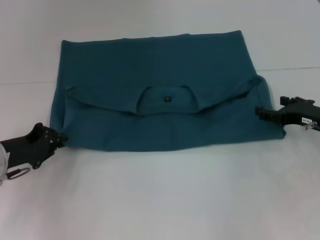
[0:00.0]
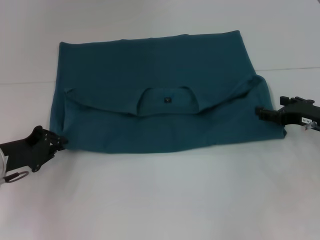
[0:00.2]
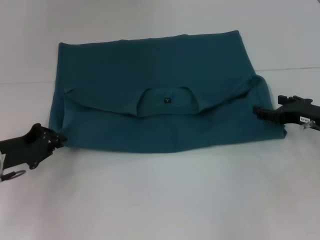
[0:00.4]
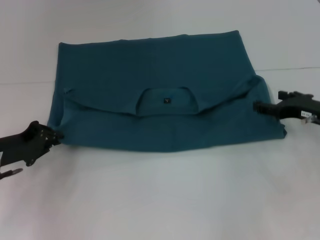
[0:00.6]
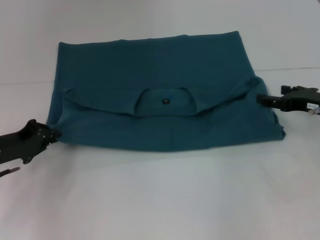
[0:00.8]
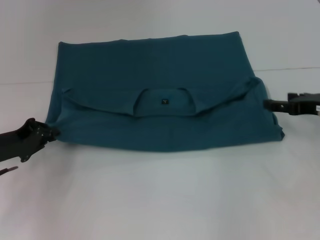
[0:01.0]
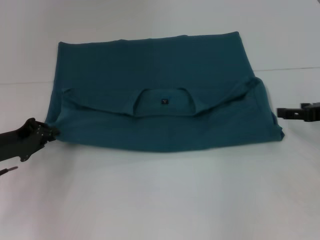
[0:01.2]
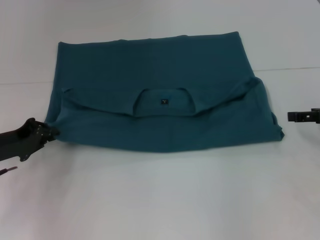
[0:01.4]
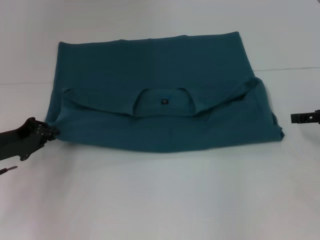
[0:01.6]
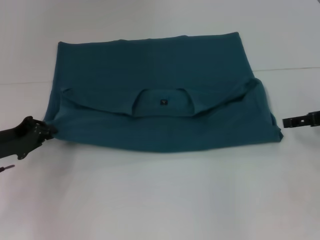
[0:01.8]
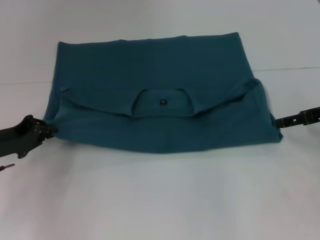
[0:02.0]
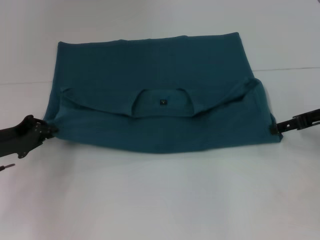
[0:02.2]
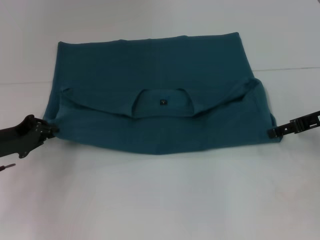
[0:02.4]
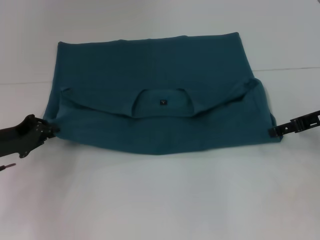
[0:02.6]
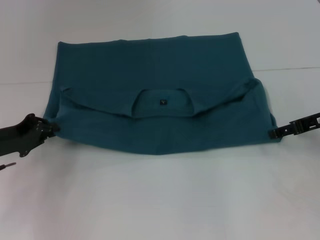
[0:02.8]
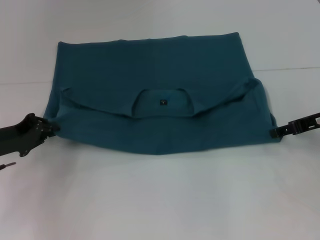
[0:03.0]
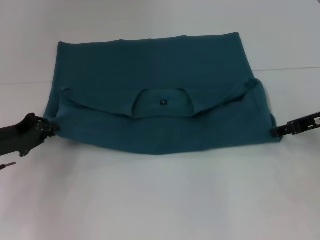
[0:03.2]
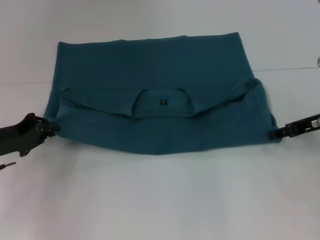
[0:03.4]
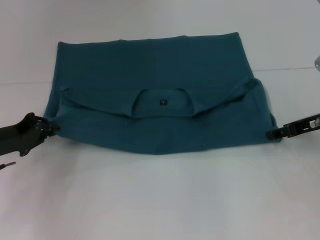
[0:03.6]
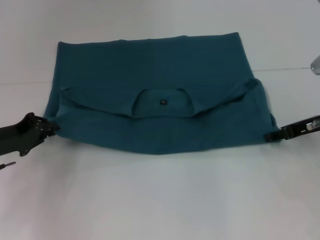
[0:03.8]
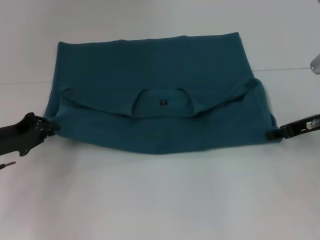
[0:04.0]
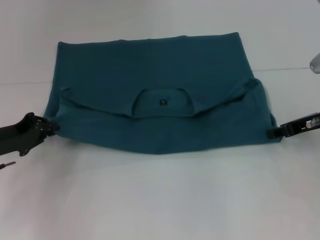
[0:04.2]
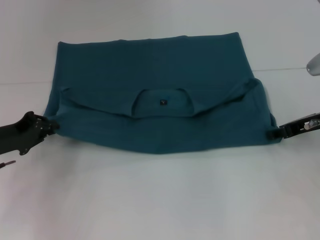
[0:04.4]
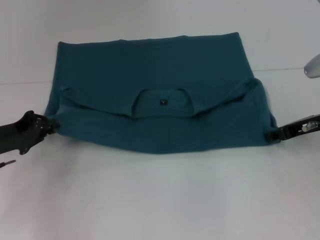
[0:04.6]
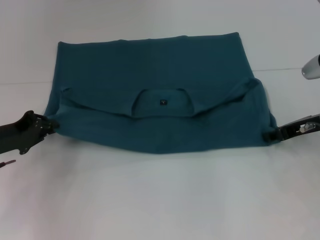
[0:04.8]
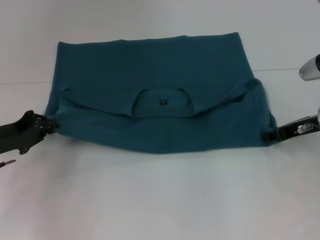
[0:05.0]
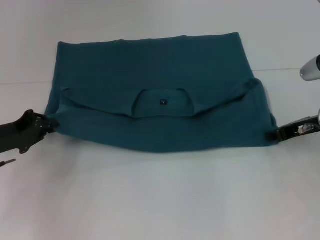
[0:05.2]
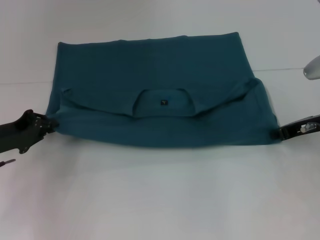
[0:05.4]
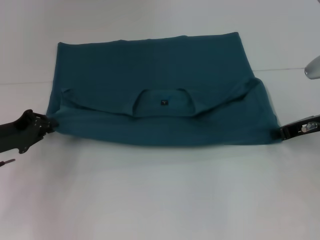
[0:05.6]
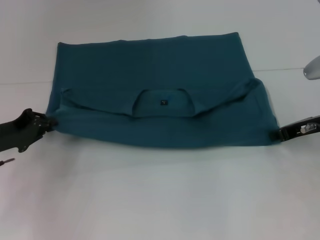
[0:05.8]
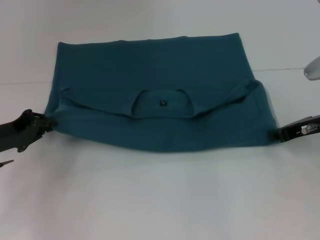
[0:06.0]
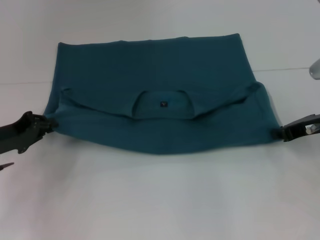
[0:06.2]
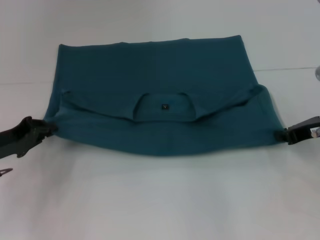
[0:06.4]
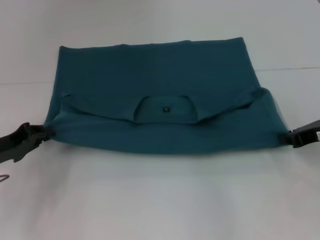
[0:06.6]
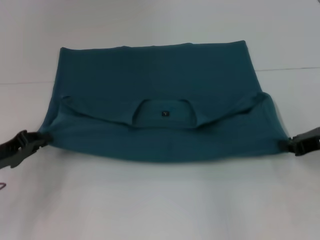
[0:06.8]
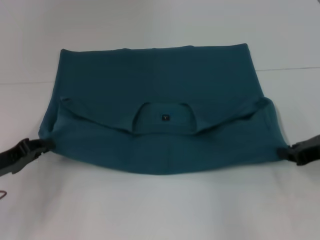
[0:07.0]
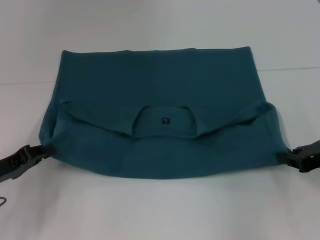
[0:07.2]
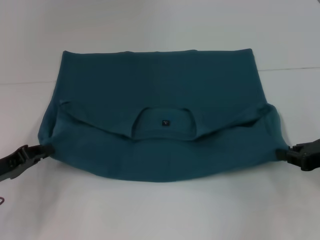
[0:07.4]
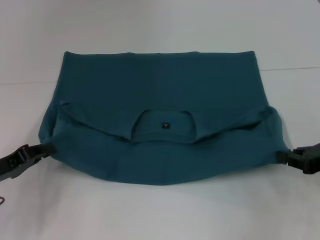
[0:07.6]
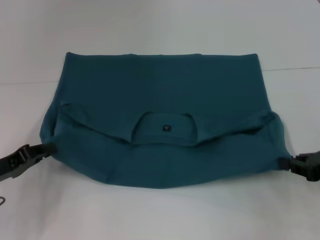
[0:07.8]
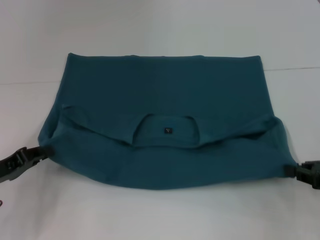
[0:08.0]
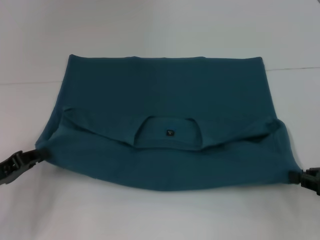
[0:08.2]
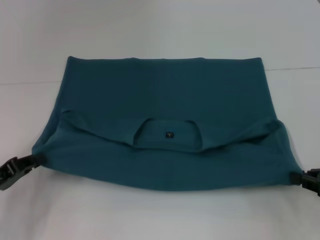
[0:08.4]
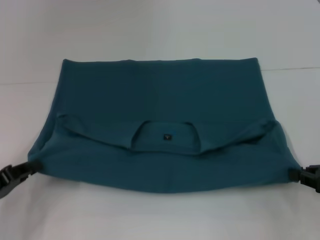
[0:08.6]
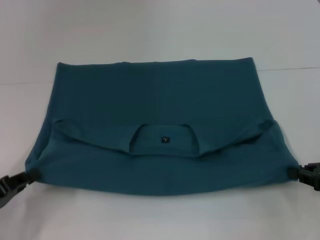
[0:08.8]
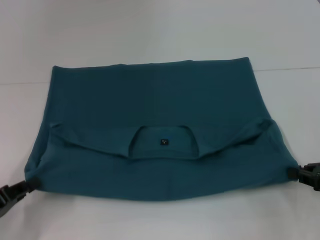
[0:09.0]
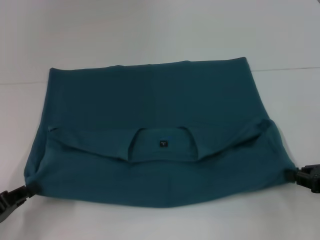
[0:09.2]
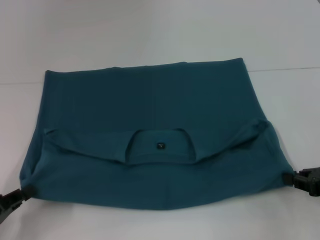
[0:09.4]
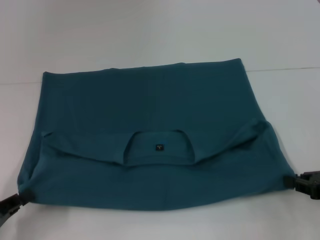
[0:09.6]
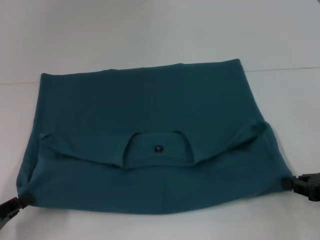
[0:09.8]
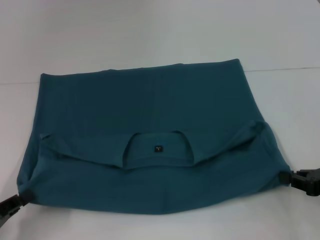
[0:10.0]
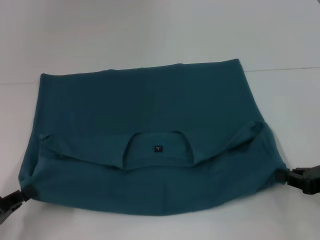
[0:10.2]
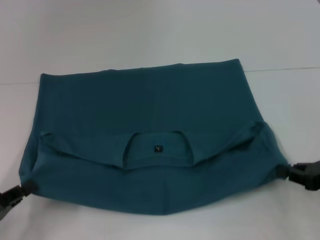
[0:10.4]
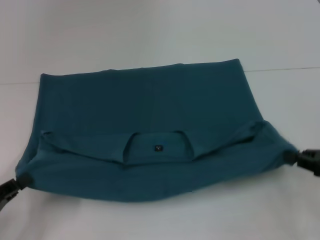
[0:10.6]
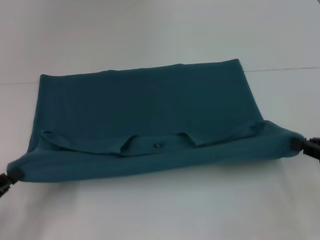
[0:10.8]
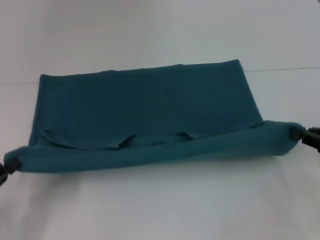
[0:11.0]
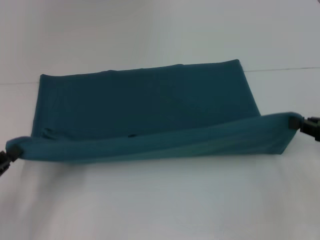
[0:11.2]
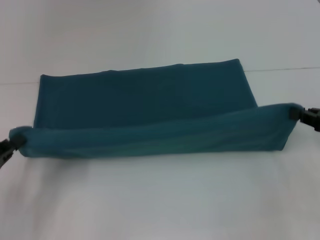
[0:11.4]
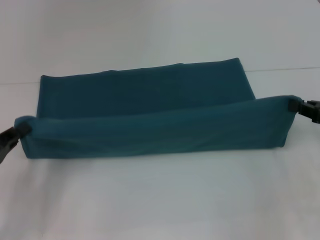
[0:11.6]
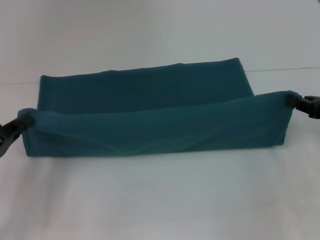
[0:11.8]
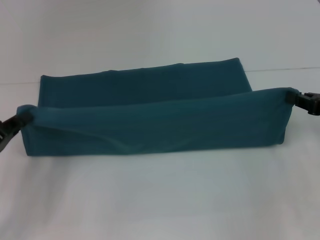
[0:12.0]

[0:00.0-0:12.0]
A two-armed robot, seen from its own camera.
Step, 0:00.0 to 0:08.8: Pull the clothes with your left hand.
Step, 0:00.0 to 0:08.8: Pull the clothes with your right hand.
0:00.0 to 0:01.6: The right gripper goes roughly 10 cm upward and to the right.
0:01.6 to 0:03.0: The right gripper changes place by roughly 5 cm.
0:03.0 to 0:04.4: The right gripper closes its fingers.
0:04.4 to 0:06.0: The right gripper closes its fingers.
0:06.0 to 0:07.6: The right gripper travels backward by some 10 cm; the left gripper is displaced backward by roughly 5 cm.
0:07.6 to 0:09.0: The left gripper is displaced backward by roughly 5 cm.
0:09.0 to 0:10.4: The grippers move only a little.
0:10.4 to 0:12.0: The grippers both shift forward by approximately 5 cm.

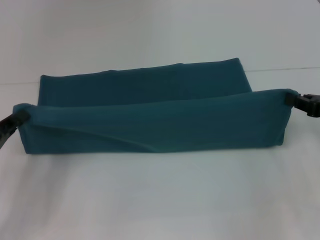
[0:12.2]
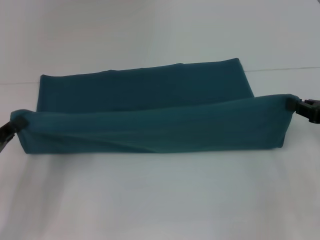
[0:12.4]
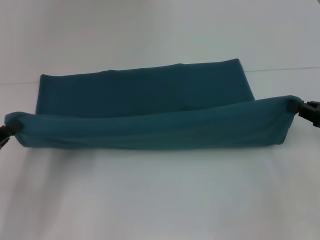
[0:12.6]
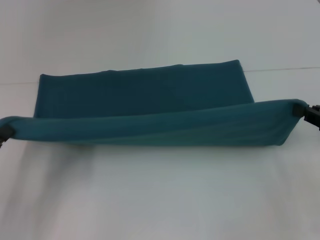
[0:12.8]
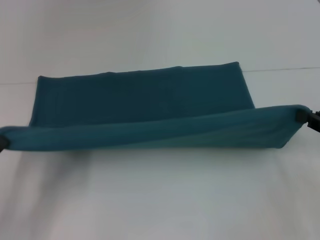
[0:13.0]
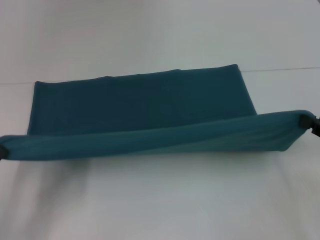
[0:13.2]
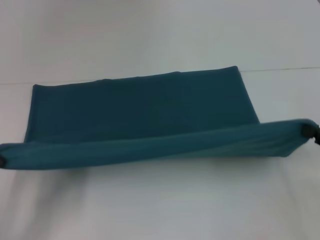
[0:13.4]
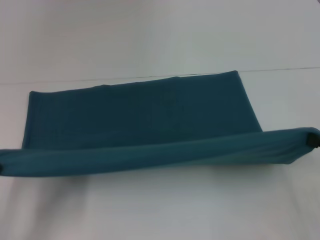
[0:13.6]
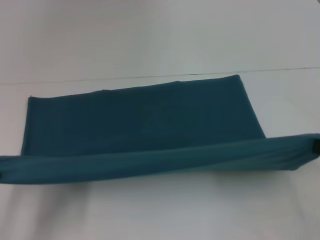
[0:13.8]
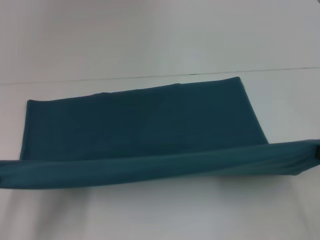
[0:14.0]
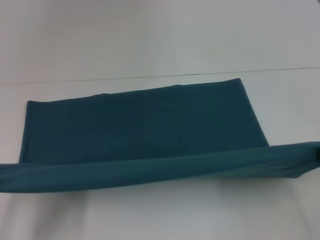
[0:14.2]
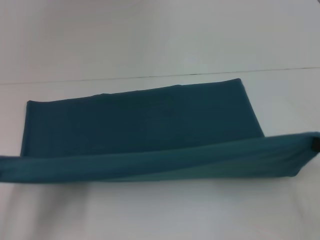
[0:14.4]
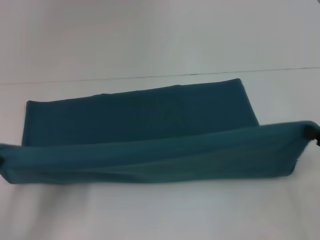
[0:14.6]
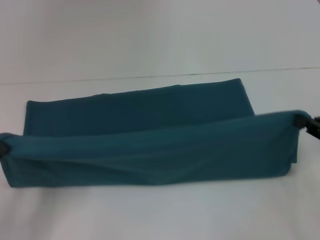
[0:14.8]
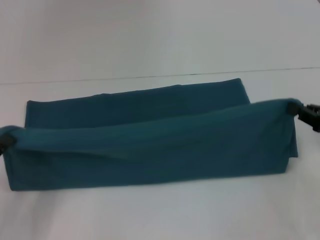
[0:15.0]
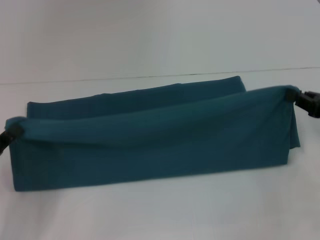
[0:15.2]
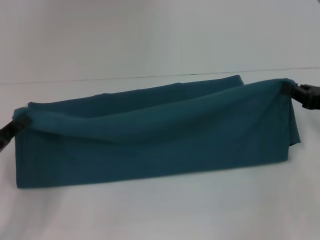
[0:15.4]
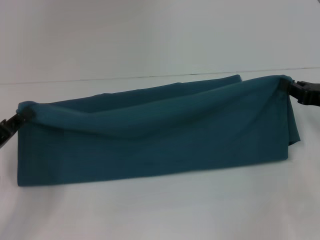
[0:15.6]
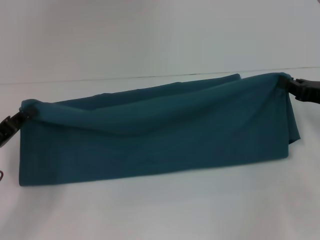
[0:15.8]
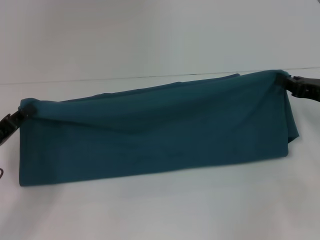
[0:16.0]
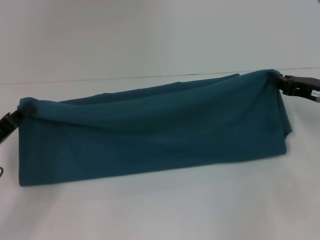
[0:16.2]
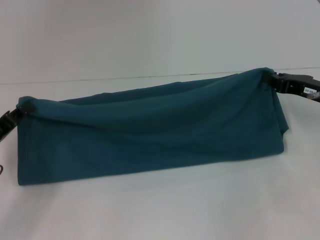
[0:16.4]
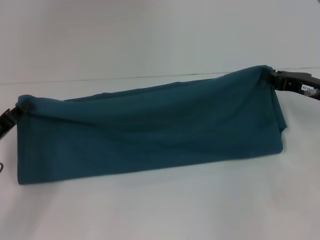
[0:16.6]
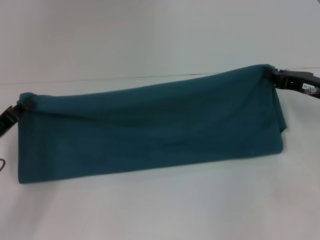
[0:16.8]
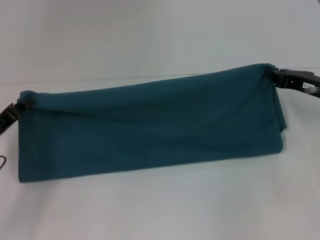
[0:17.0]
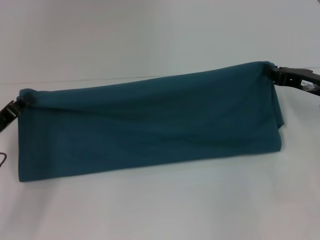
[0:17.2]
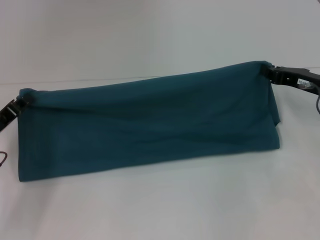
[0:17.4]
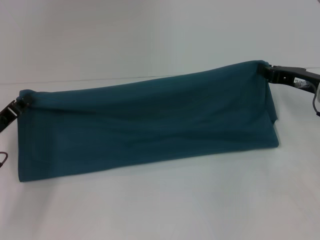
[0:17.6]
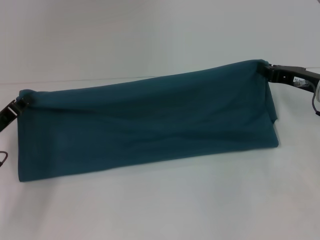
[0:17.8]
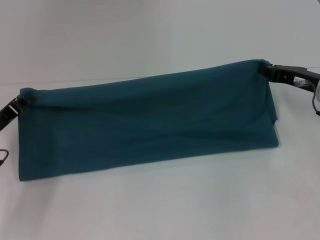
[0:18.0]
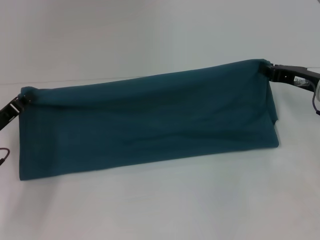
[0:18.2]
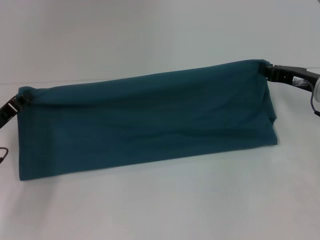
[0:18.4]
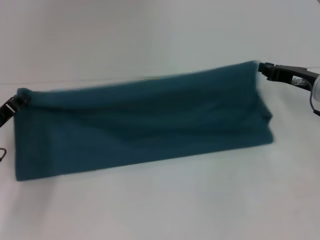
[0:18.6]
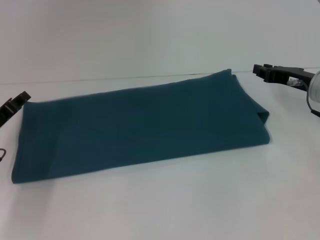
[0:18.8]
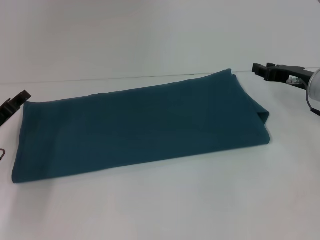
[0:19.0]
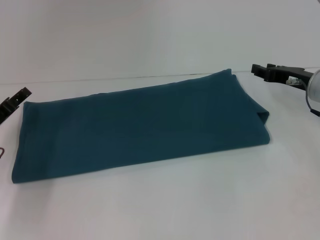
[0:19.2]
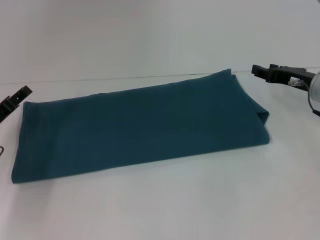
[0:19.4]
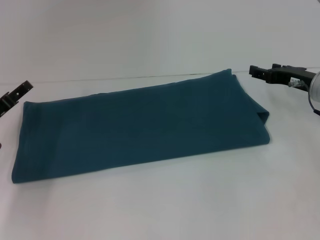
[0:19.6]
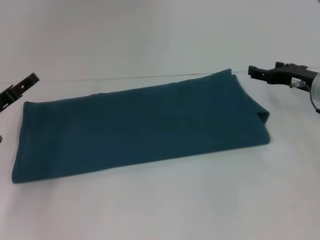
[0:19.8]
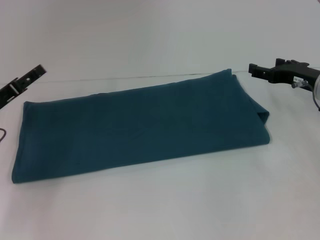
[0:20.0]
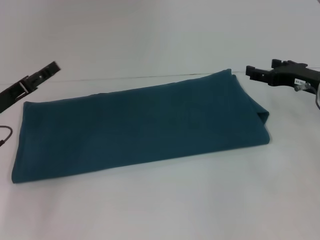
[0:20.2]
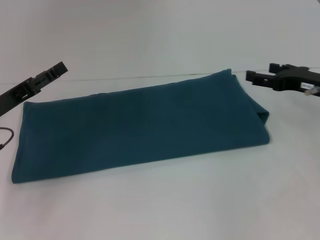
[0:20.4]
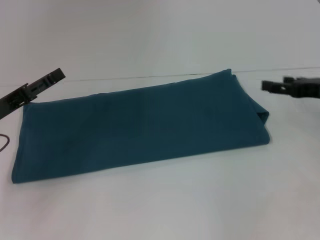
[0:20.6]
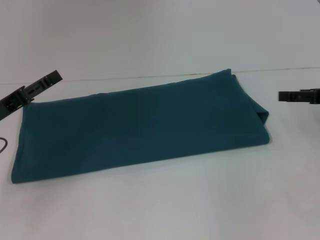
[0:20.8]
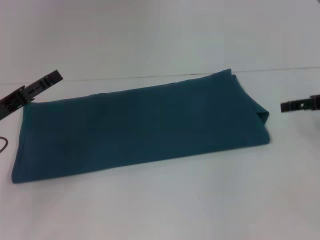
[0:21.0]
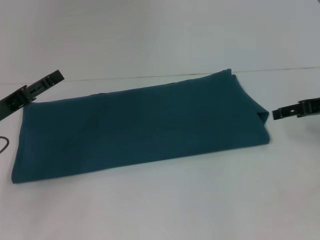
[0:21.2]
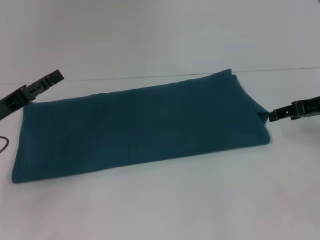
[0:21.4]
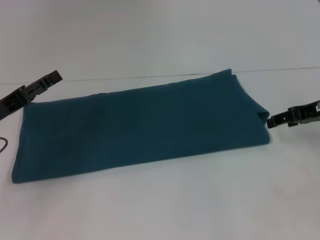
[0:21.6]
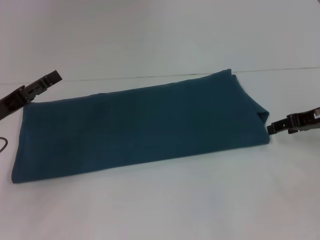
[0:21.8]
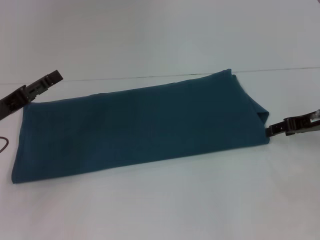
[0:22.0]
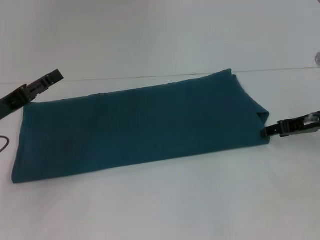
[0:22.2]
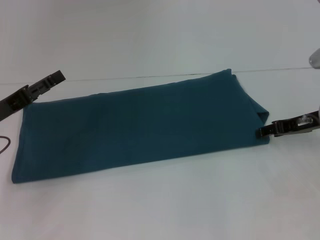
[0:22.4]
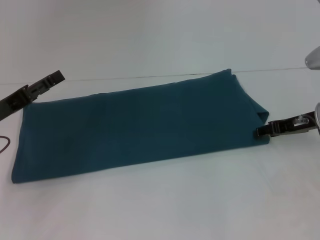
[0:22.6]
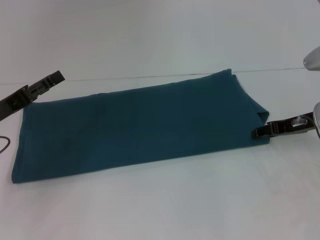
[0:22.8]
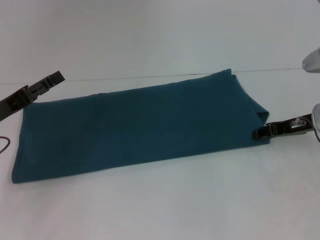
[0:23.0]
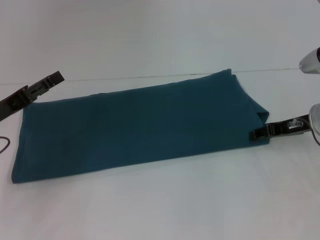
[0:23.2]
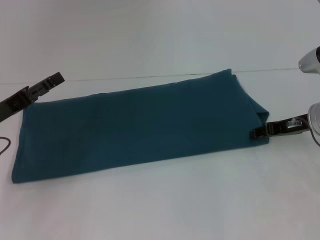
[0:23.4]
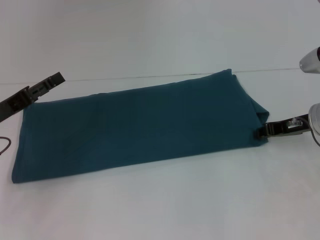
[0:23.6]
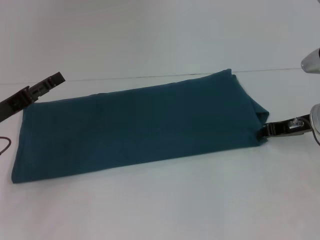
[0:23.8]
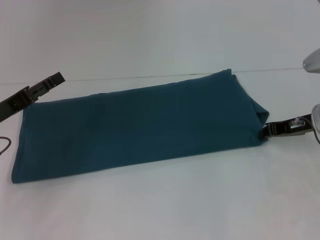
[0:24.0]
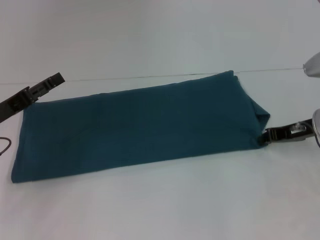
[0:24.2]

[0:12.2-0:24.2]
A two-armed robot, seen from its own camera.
Step, 0:12.2 to 0:20.4: Fold the clothes to the right.
0:12.2 to 0:13.8: The two grippers go about 10 cm backward.
0:13.8 to 0:15.2: The grippers both shift forward by roughly 10 cm.
0:15.2 to 0:16.6: The two grippers go roughly 5 cm forward.
0:16.6 to 0:18.2: The grippers stay close to where they were, moving slightly.
0:18.2 to 0:19.8: The left gripper opens its fingers; the right gripper opens its fingers.
0:19.8 to 0:21.2: The right gripper moves upward, approximately 5 cm.
0:21.2 to 0:22.6: The right gripper heads downward, covering approximately 5 cm.
0:22.6 to 0:24.2: The right gripper closes.
